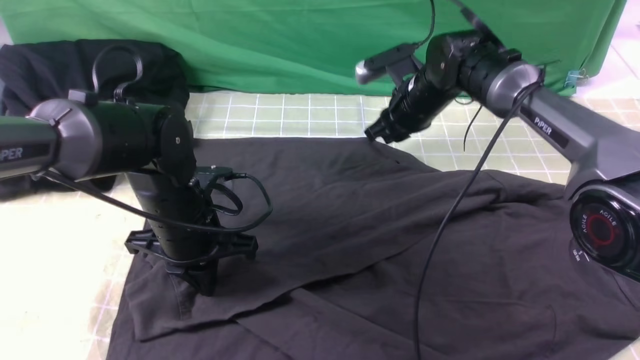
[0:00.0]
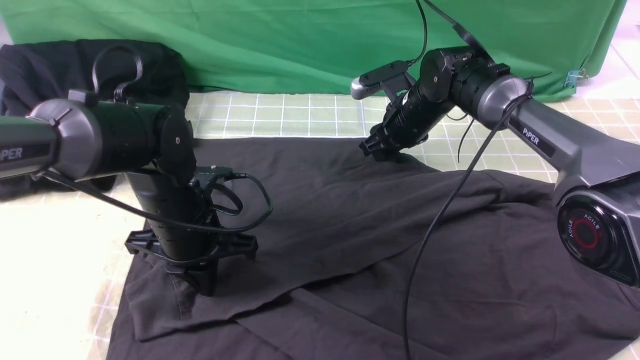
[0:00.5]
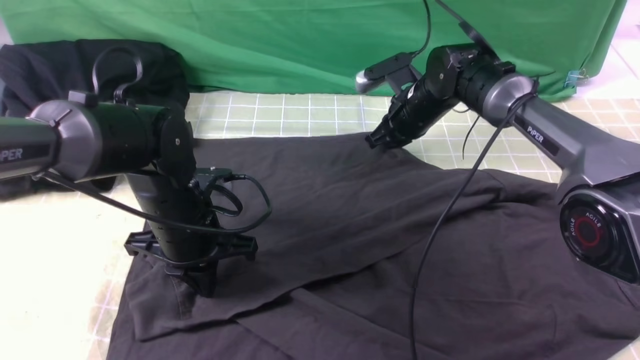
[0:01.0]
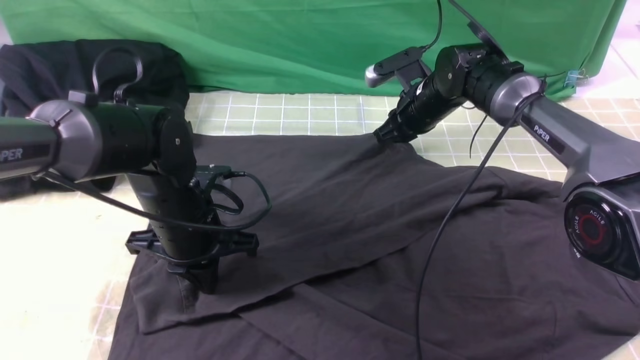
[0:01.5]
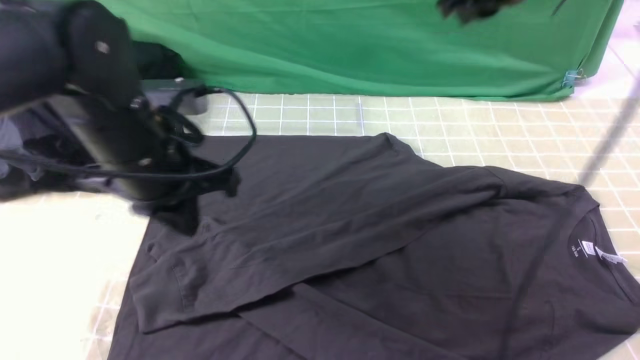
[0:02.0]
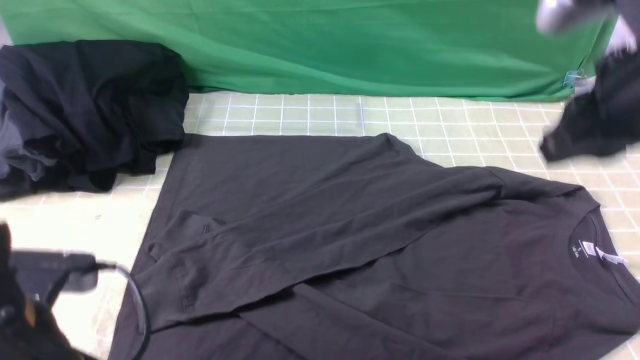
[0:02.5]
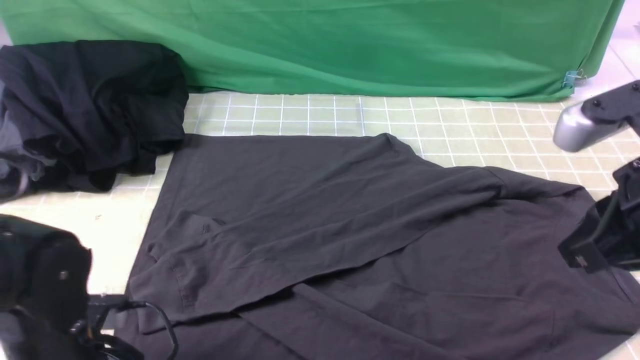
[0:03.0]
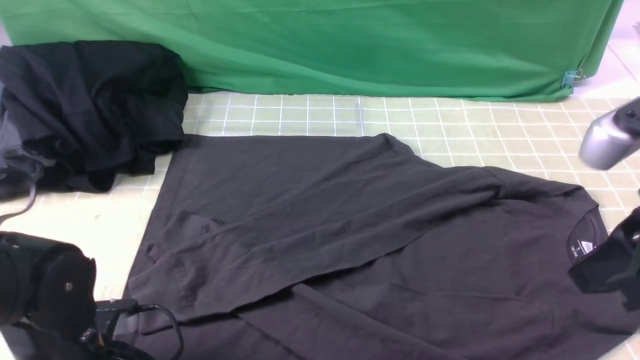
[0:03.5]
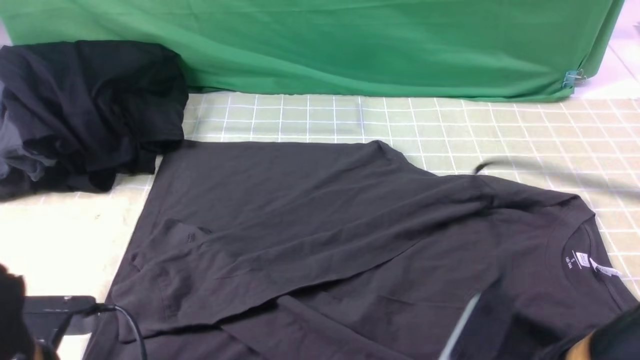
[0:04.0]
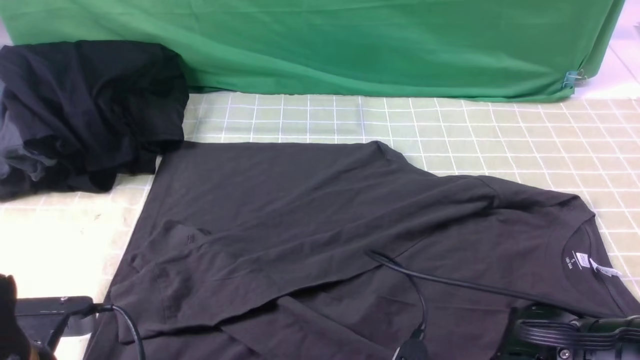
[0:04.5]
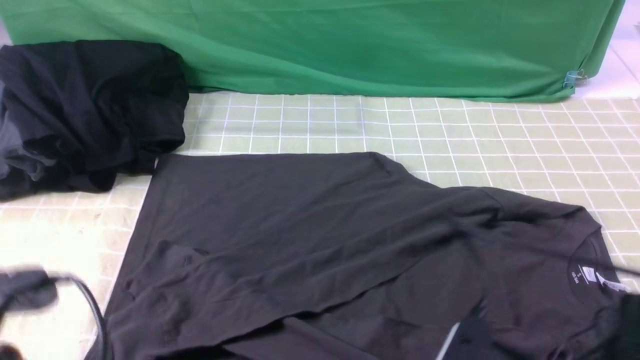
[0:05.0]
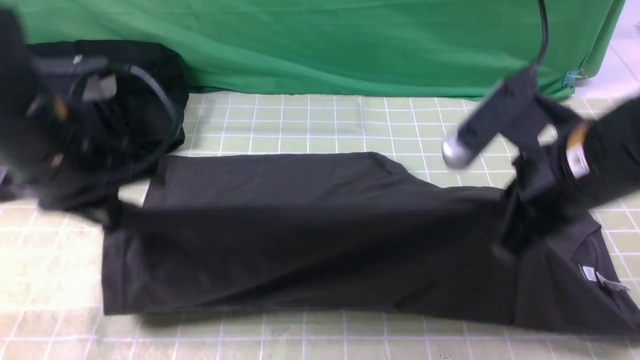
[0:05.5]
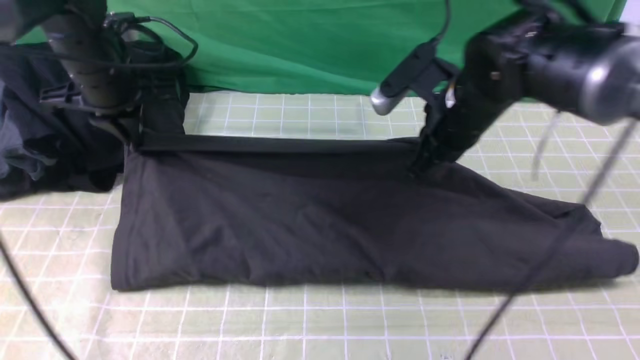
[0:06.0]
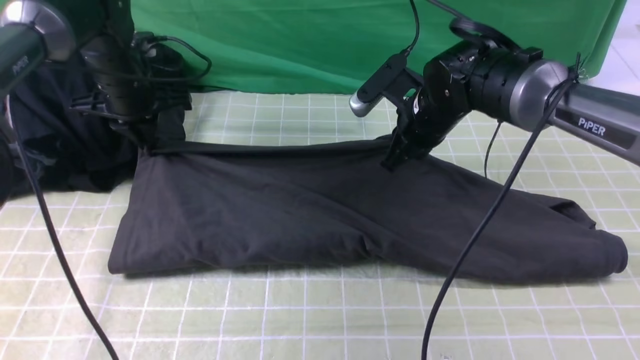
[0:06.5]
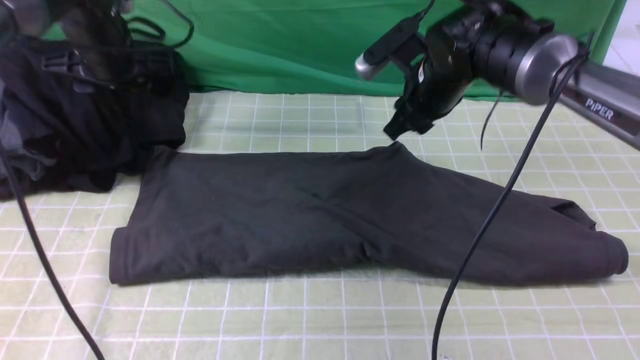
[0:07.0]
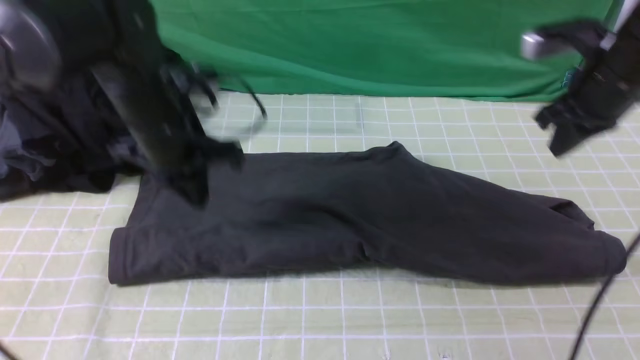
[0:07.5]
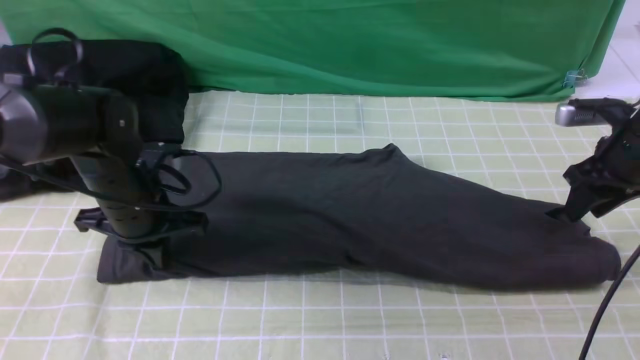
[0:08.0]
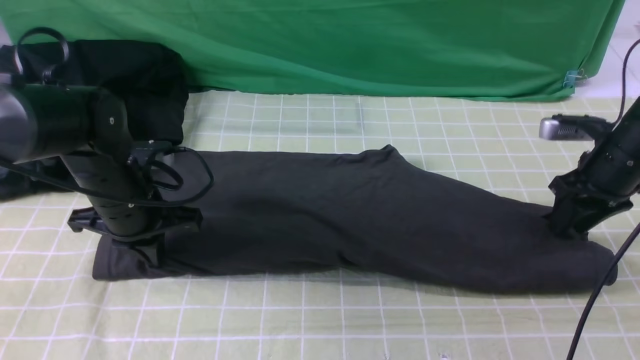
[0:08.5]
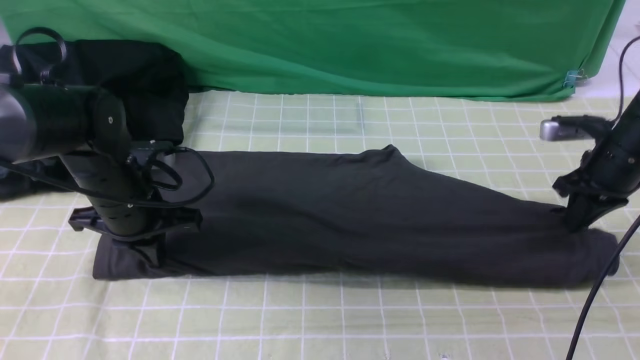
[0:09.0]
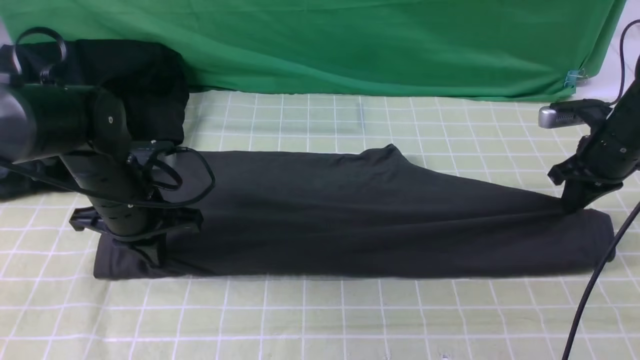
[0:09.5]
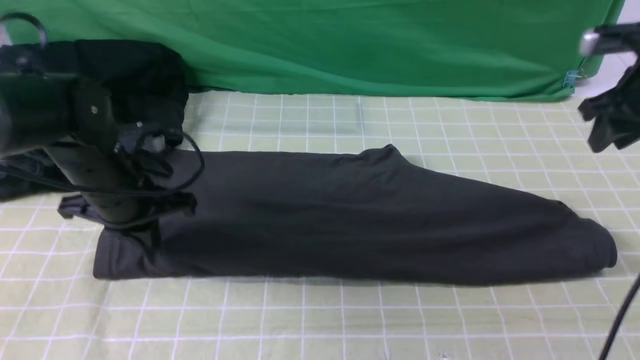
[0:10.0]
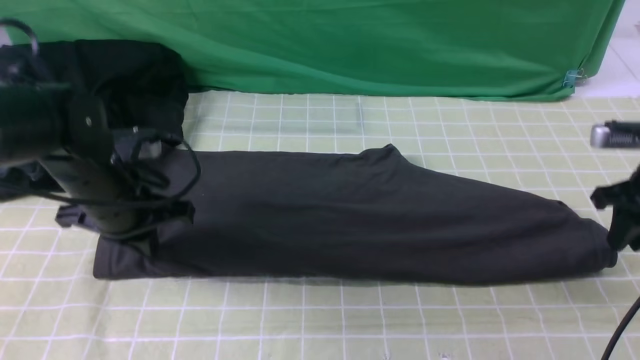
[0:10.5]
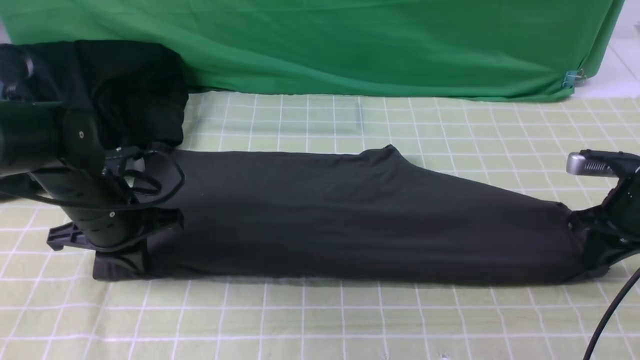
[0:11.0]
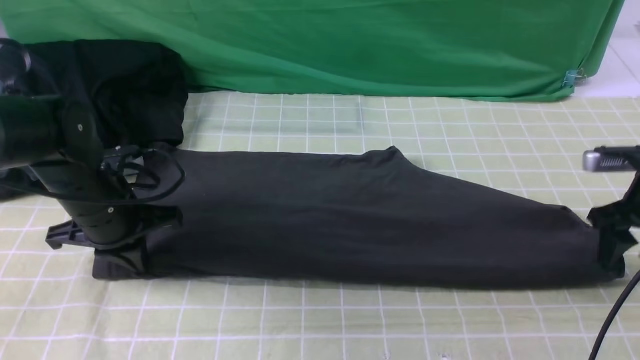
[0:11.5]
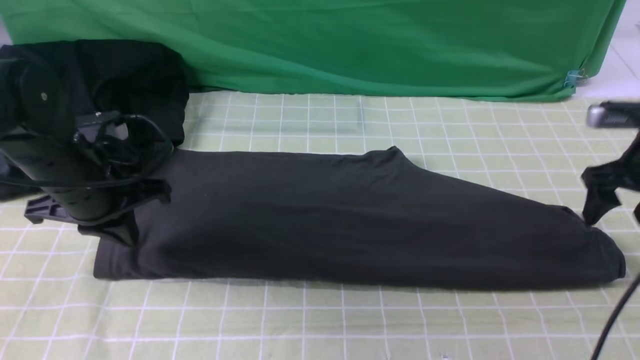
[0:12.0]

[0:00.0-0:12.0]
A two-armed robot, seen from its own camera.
Step, 0:00.0 to 0:04.5: use both arms simultaneously to clamp the lower edge of the clothing fabric.
Step, 0:05.0 to 0:06.5: use both arms to drag the lower edge of the fabric forward and fold it over the upper edge.
0:00.0 to 0:02.0: The left gripper is displaced upward by approximately 10 cm; the right gripper heads upward, covering about 20 cm.
0:02.0 to 0:04.0: The right gripper is displaced backward and downward by some 35 cm, and opens. Meanwhile the left gripper shifts roughly 15 cm backward and downward, and opens, then closes again.
0:04.0 to 0:06.0: Both grippers move forward, some 30 cm. The right gripper closes.
0:06.0 to 0:08.0: The left gripper goes approximately 15 cm downward and backward, and opens, then closes again. The right gripper travels to the right by about 20 cm, and opens its fingers.
0:08.0 to 0:10.0: The right gripper moves upward, some 5 cm, and closes and opens again.
0:10.0 to 0:12.0: The right gripper moves downward, some 5 cm, and opens.

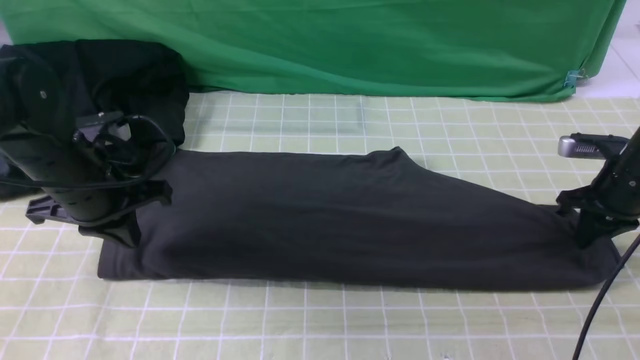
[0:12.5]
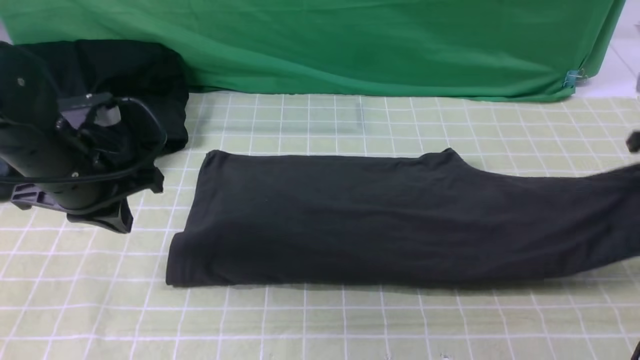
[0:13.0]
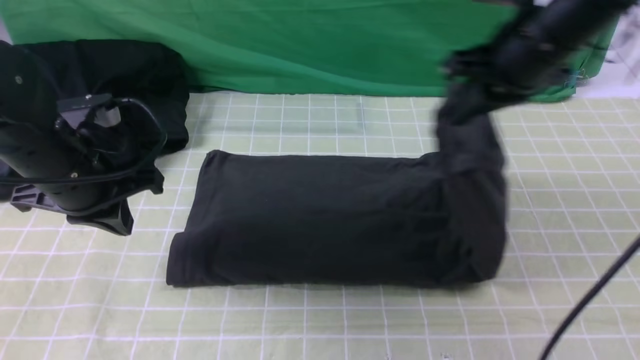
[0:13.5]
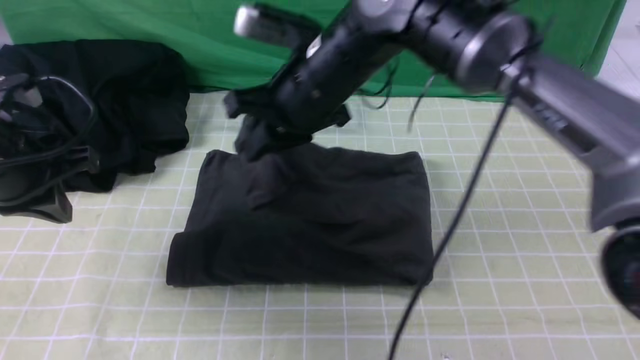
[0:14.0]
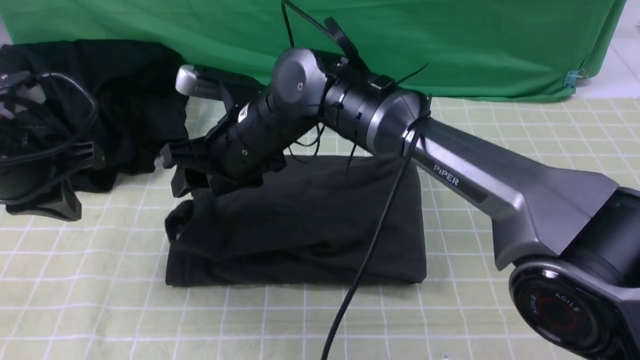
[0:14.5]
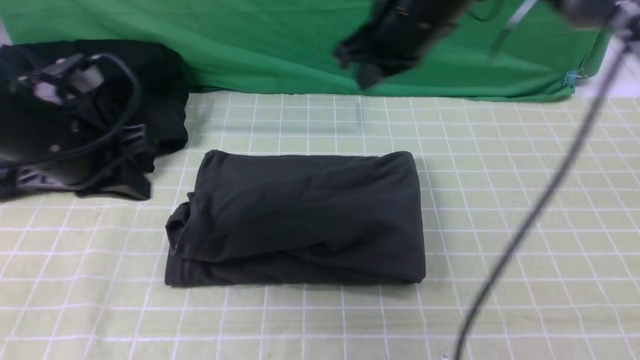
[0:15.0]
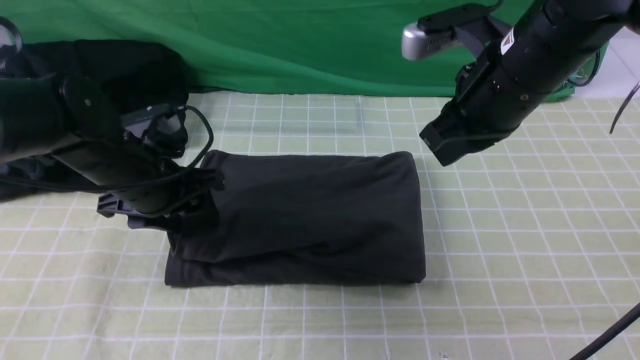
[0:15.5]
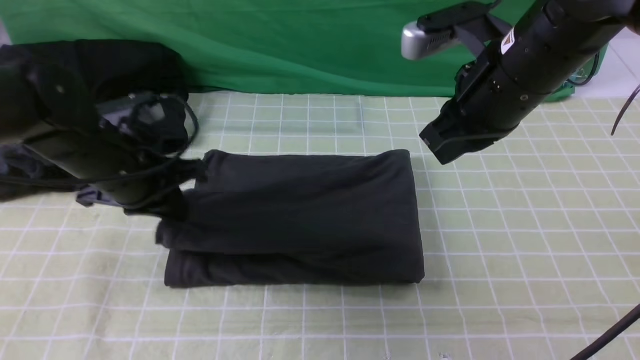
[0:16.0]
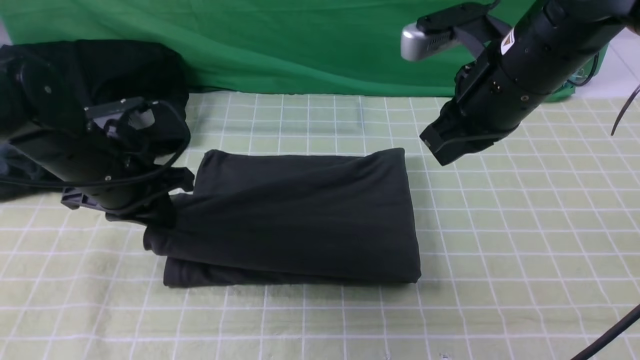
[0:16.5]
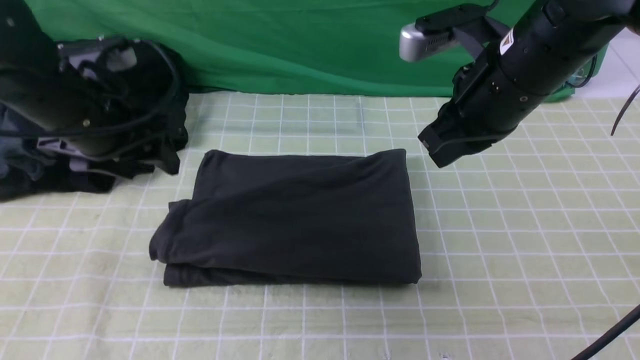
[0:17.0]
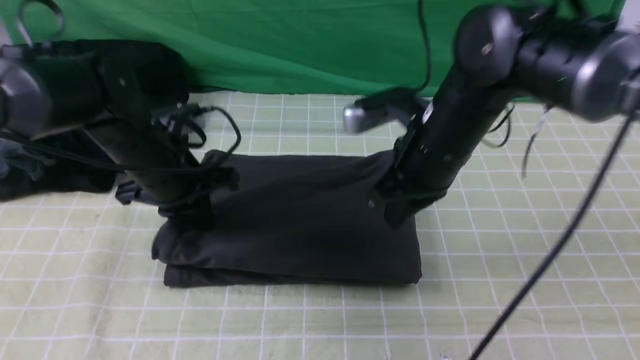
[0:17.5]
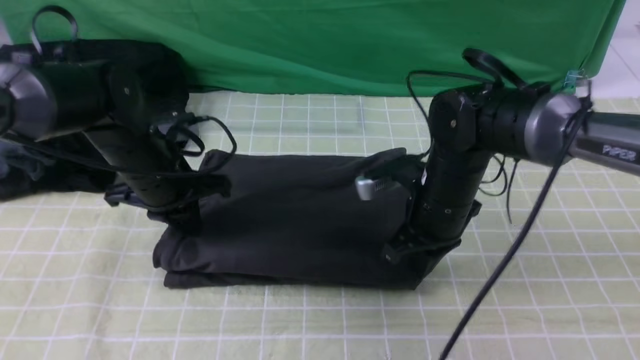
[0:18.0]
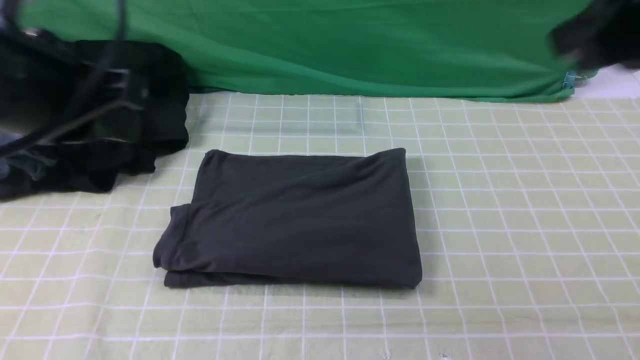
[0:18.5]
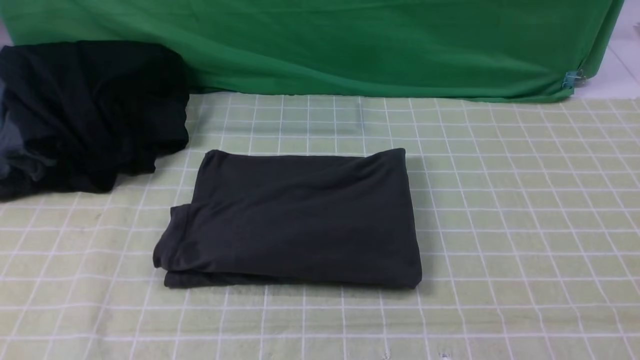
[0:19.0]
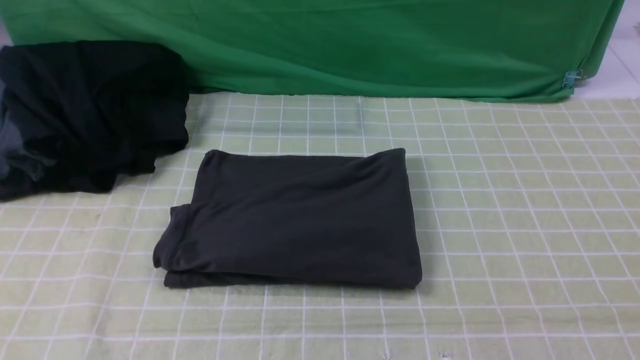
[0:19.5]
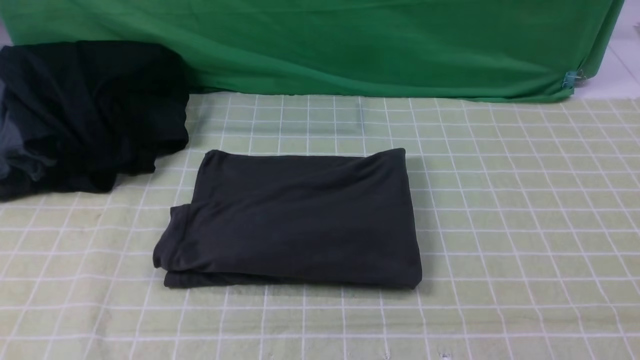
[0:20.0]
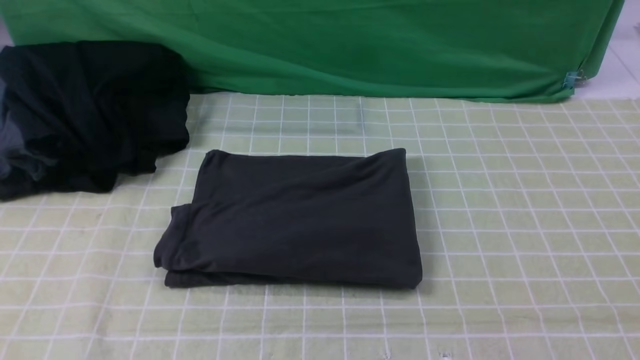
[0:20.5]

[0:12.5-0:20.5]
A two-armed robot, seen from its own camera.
Step, 0:13.0 to 0:14.5: use the right arm to drag the right edge of the fabric to the left and folds it over the left edge.
0:12.5 to 0:14.5: The right gripper is displaced to the left by some 40 cm, and opens up. The left gripper travels upward by some 5 cm.
0:14.5 to 0:16.5: The right gripper goes approximately 20 cm to the right, and closes its fingers. Meanwhile the left gripper shifts roughly 5 cm to the right, and opens its fingers.
0:16.5 to 0:18.5: The right gripper goes about 20 cm backward, upward and to the right, while the left gripper swings up and down, about 20 cm each way, with 2 reversals, and closes up.
0:18.5 to 0:20.5: The right gripper goes roughly 25 cm backward and to the right, while the left gripper heads backward and downward, covering approximately 20 cm.
